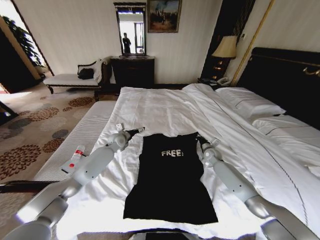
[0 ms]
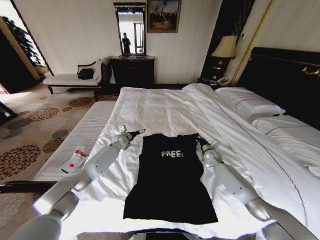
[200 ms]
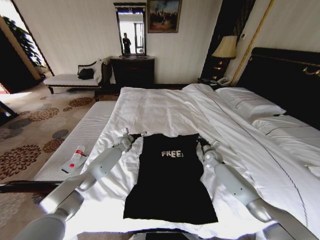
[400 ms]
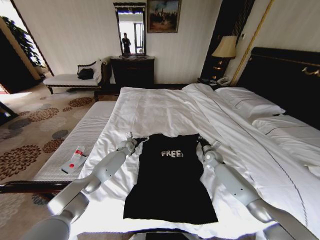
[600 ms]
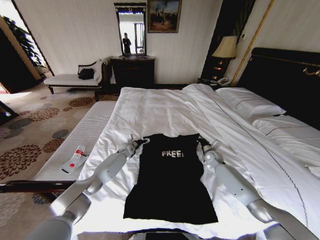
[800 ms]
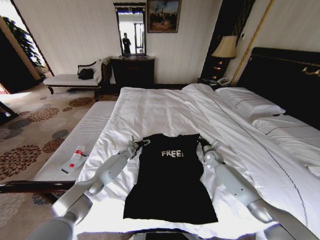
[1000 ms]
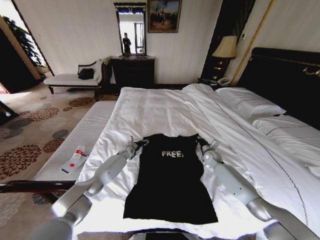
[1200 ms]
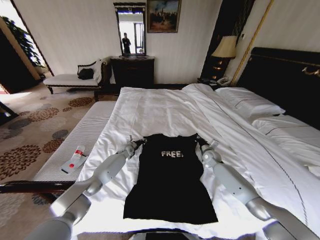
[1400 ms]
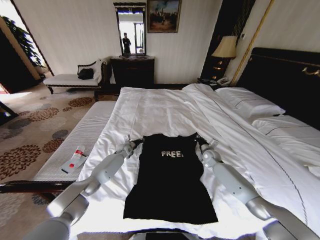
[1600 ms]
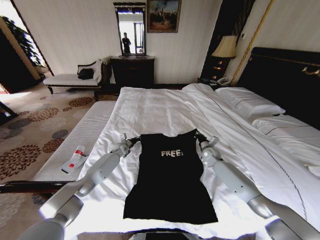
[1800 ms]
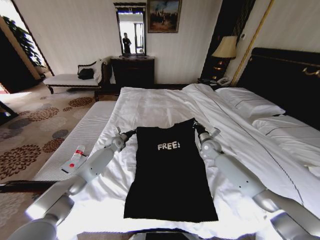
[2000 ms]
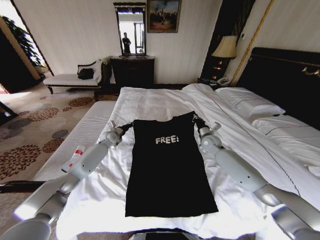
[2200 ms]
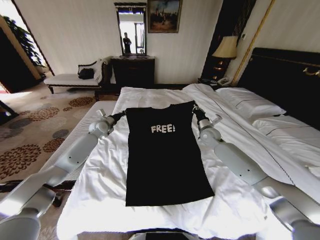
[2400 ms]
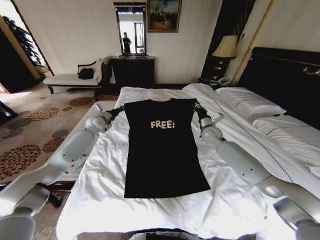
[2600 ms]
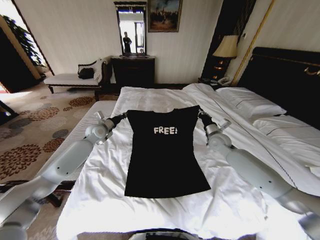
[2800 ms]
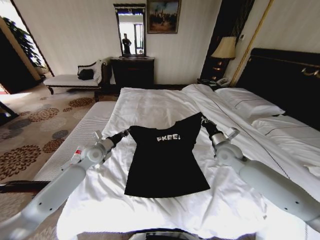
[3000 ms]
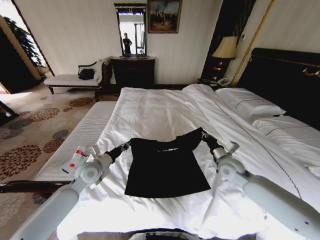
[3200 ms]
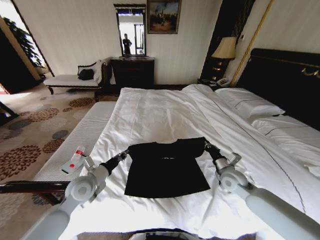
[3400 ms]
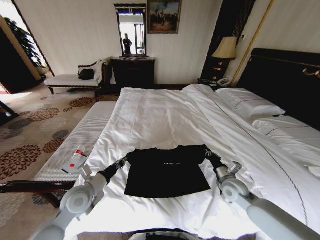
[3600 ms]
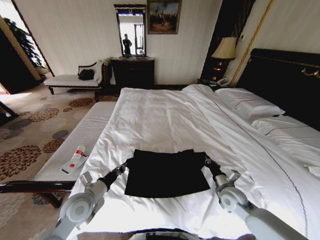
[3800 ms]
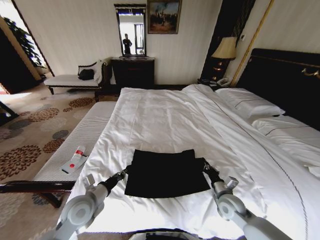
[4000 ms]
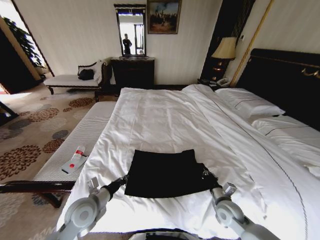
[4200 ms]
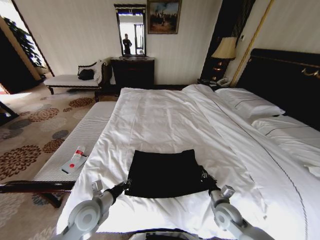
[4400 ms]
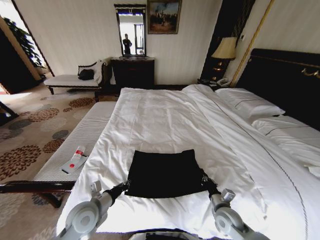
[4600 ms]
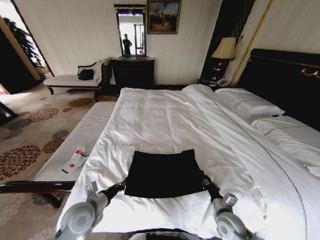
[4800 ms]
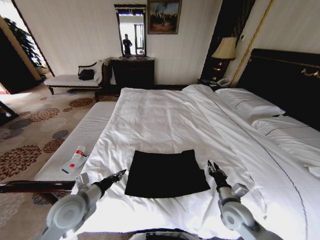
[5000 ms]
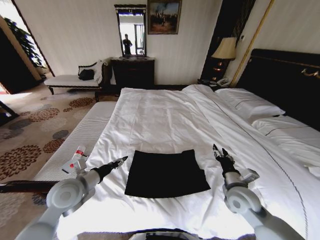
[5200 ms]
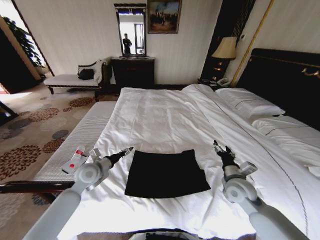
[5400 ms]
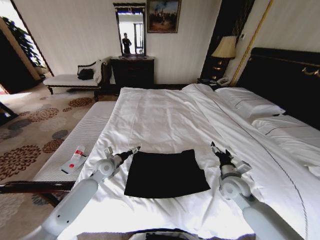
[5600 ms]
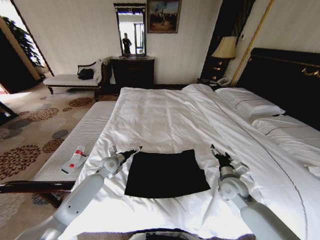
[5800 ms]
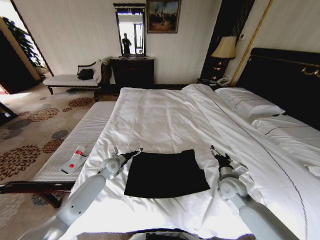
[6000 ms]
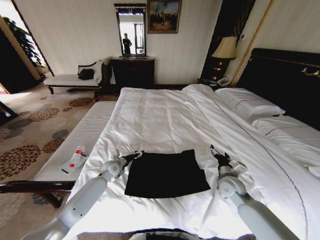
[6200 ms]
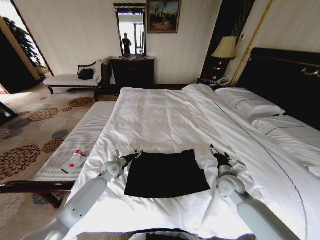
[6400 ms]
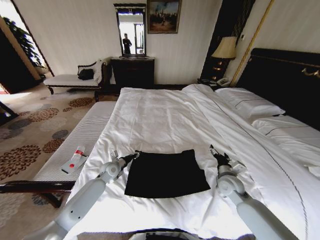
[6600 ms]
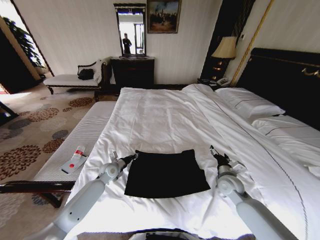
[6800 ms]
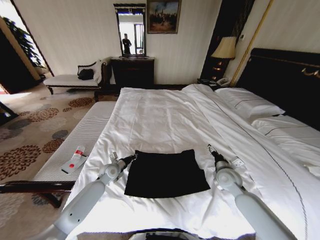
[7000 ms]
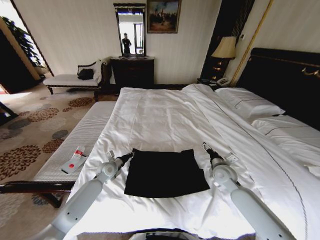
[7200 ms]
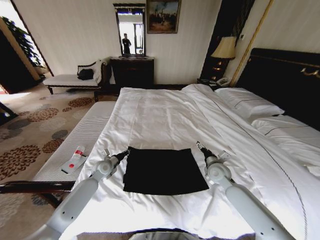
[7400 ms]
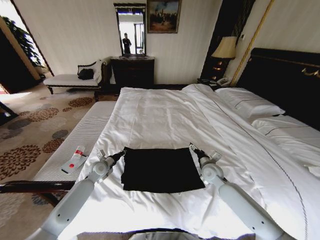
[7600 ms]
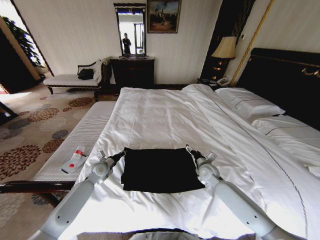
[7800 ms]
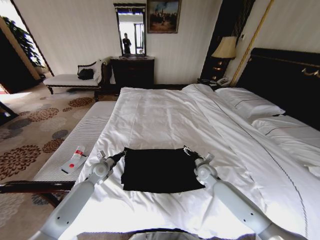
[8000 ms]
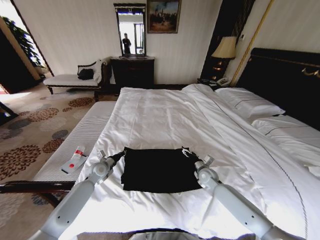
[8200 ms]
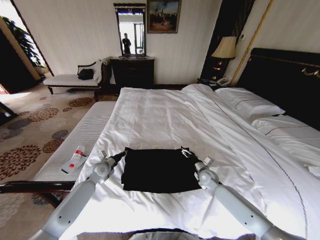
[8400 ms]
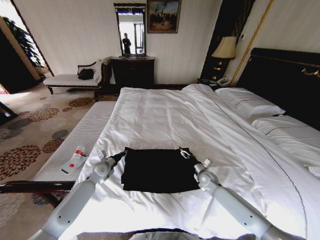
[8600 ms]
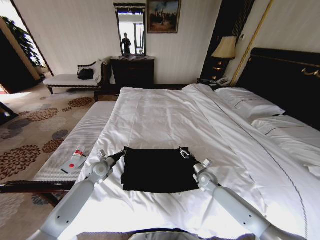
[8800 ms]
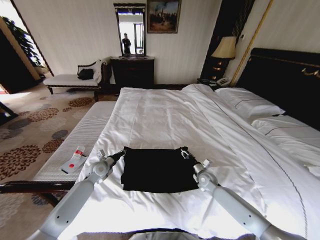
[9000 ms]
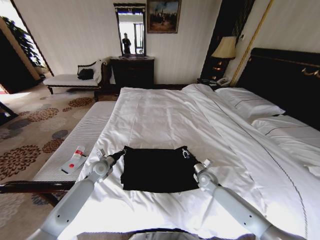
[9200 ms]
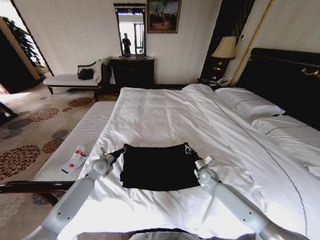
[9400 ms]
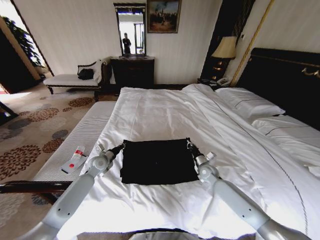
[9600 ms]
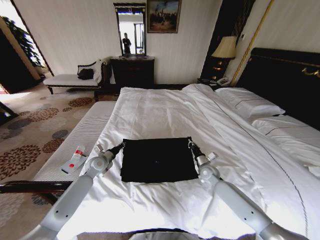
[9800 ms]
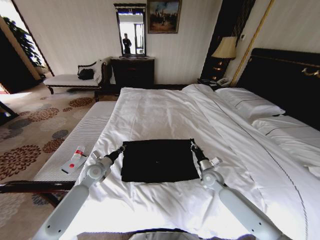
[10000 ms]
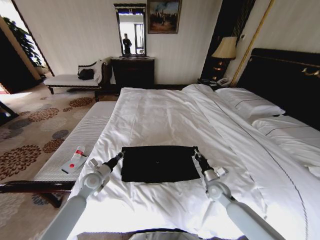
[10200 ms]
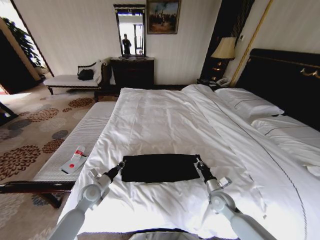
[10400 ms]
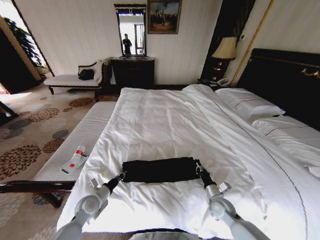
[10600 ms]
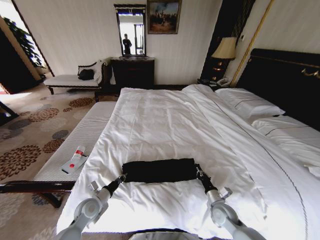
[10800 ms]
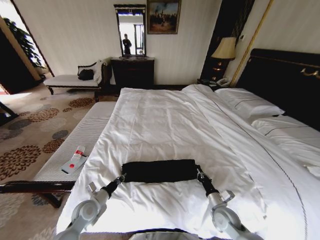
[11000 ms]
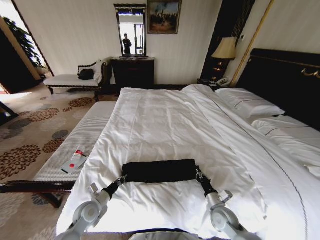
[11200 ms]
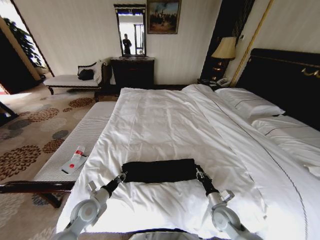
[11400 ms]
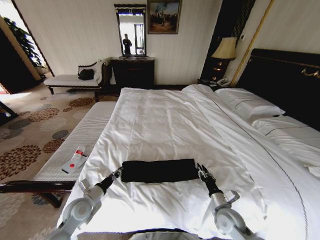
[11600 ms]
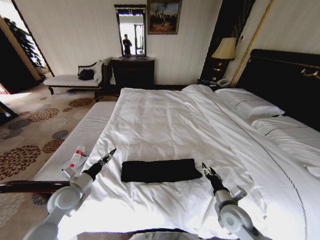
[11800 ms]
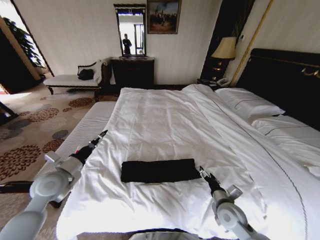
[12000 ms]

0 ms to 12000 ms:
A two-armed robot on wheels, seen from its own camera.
Task of the whole recording: Fold the clothes on the bed.
0 ms to 1600 ms: The left gripper is displaced downward by approximately 15 cm, and closes.
1600 ms to 3000 ms: The right gripper is displaced upward and backward by some 15 cm. The left gripper moves upward, backward and to the left, roughly 20 cm.
3000 ms to 4400 ms: The left gripper shifts approximately 20 cm backward; the right gripper travels backward and downward by approximately 25 cm.
4400 ms to 6000 ms: The left gripper heads forward, covering some 20 cm, and opens. The right gripper is displaced forward and upward by about 10 cm, and opens up.
6000 ms to 7600 ms: The right gripper moves forward and to the left, approximately 10 cm, while the left gripper travels to the left by approximately 5 cm, and closes.
7600 ms to 9000 ms: The right gripper heads downward, covering roughly 10 cm, and closes.
9000 ms to 10400 ms: Both grippers move backward, some 10 cm. The right gripper closes its fingers.
10400 ms to 12000 ms: The left gripper travels upward by roughly 15 cm, and opens up. Meanwhile the right gripper goes roughly 10 cm upward and backward, and opens up.

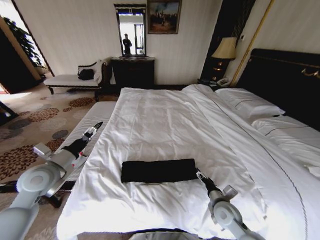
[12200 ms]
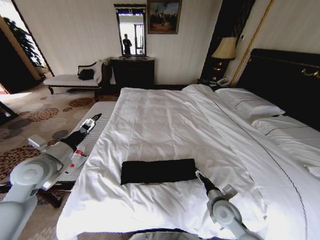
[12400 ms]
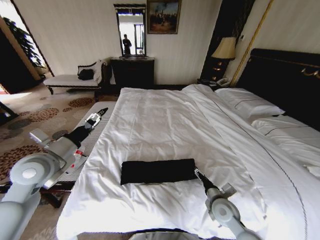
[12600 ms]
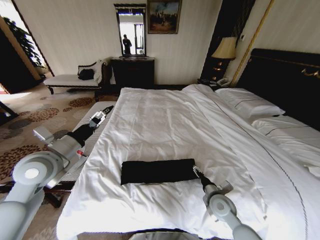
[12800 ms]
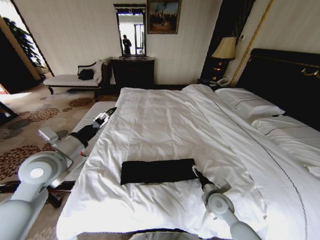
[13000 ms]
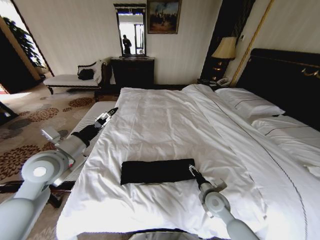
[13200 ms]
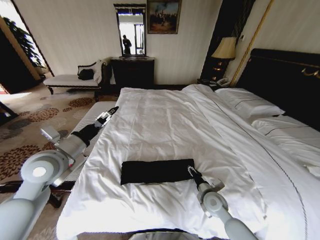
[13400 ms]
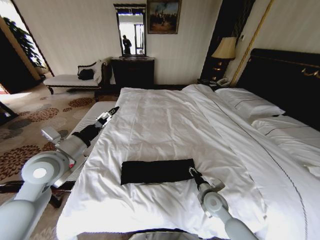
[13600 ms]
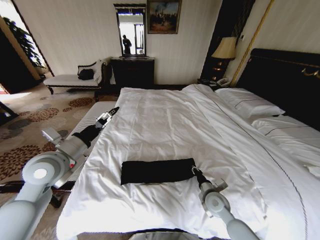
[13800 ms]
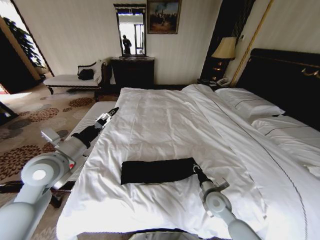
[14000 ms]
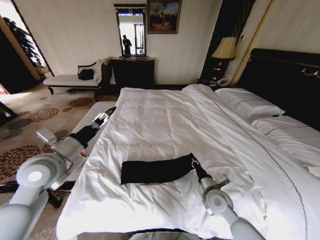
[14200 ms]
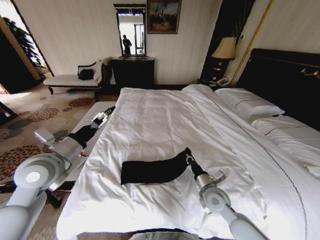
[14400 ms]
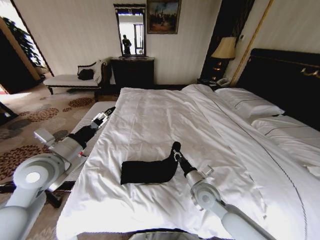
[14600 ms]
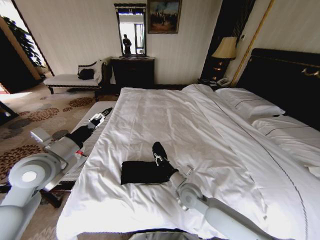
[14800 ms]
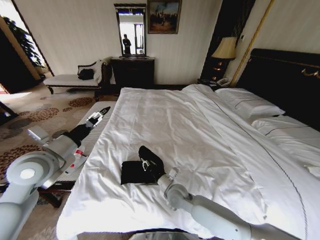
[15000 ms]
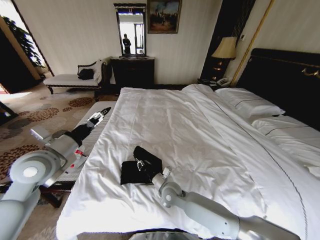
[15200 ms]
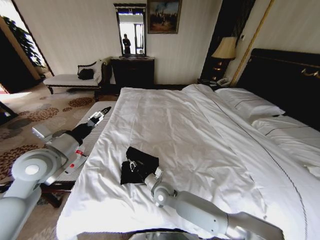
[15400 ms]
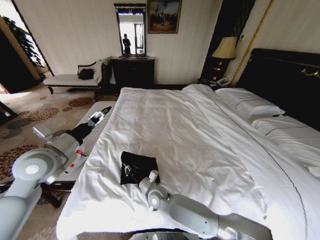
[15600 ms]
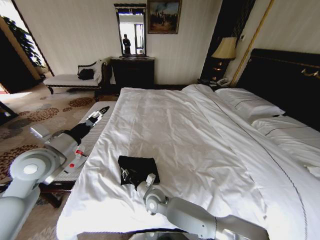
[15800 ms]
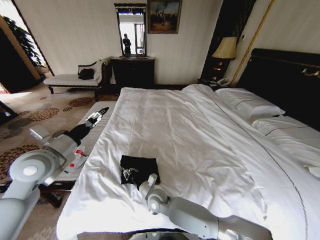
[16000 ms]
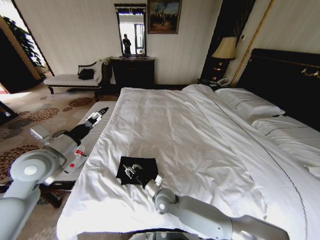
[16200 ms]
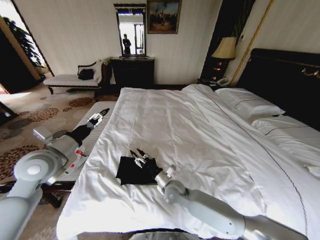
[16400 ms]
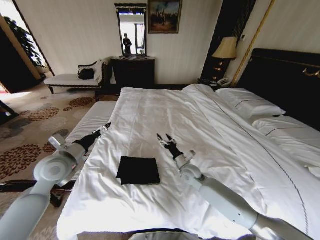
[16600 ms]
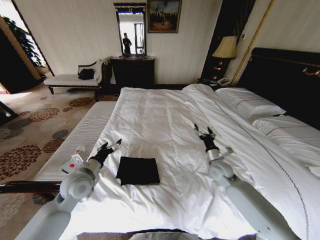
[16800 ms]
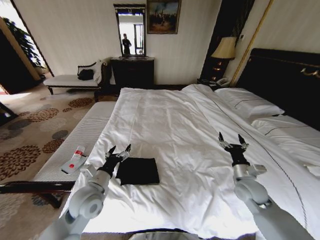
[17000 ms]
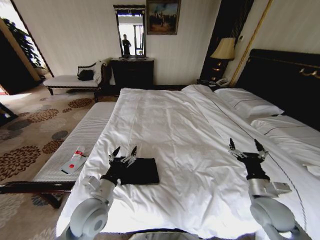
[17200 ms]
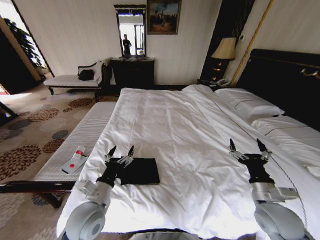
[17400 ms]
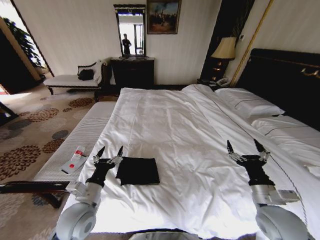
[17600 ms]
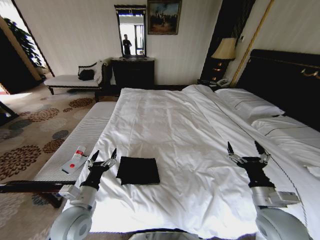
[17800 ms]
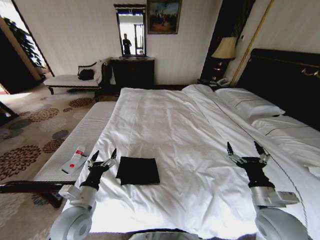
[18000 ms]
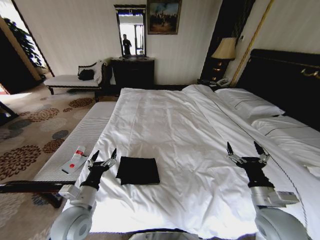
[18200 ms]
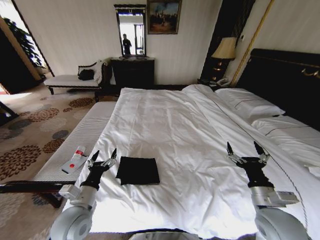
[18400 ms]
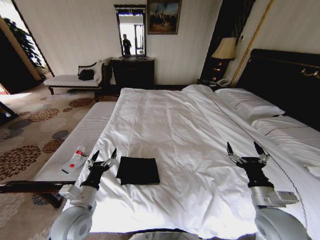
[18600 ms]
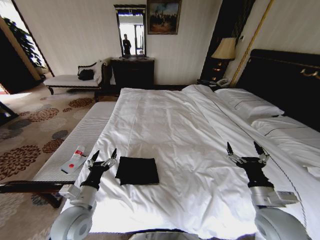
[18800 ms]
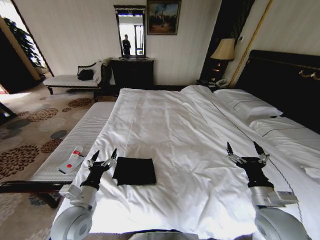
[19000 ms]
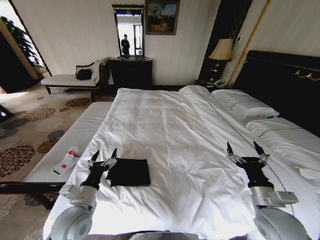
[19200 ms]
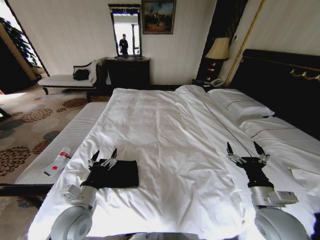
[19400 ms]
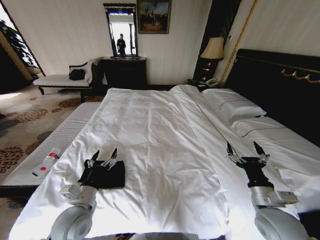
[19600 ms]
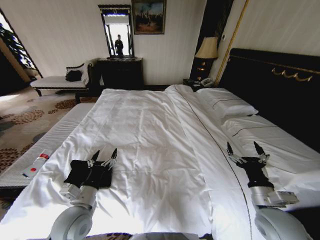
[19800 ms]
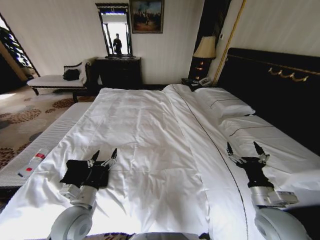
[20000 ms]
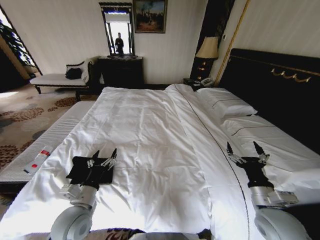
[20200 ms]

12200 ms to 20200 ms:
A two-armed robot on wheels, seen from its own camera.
Task of the whole recording: Fold the clothes on the bed.
12200 ms to 13800 ms: The left gripper moves to the right and upward, about 10 cm. Meanwhile the right gripper closes up.
13800 ms to 15400 ms: The right gripper shifts approximately 25 cm to the left, and closes.
15400 ms to 17000 ms: The right gripper heads to the right, covering roughly 35 cm, and opens its fingers. The left gripper shifts approximately 20 cm downward and to the right.
17000 ms to 18600 ms: The right gripper is displaced backward and upward by some 10 cm; the left gripper shifts some 5 cm backward.

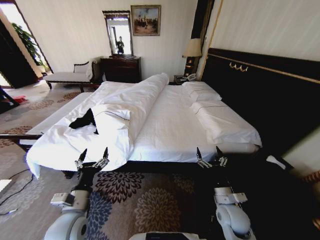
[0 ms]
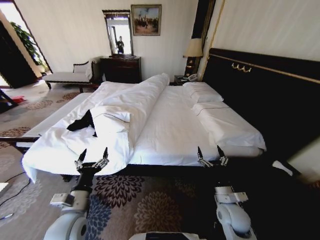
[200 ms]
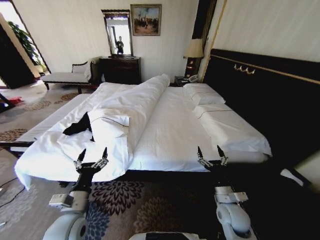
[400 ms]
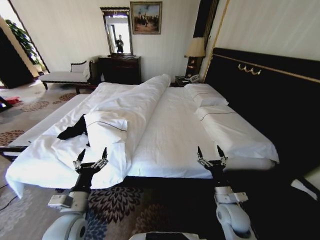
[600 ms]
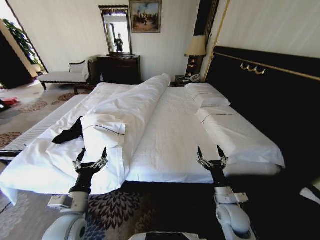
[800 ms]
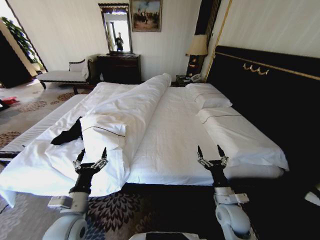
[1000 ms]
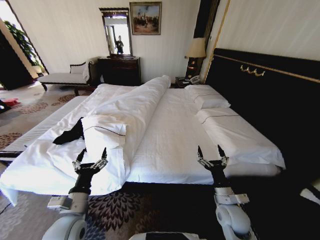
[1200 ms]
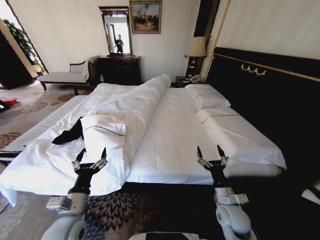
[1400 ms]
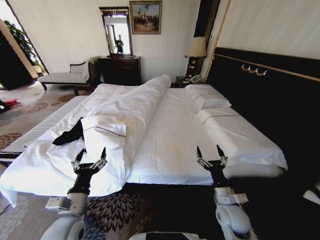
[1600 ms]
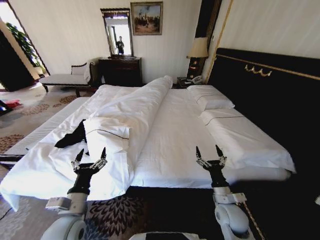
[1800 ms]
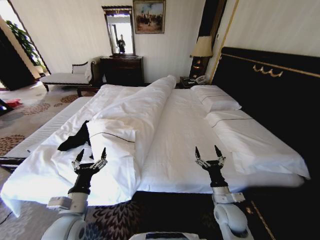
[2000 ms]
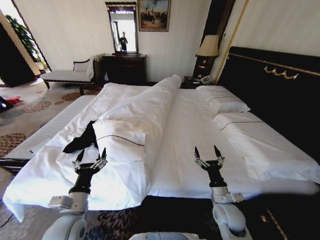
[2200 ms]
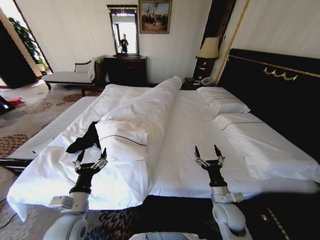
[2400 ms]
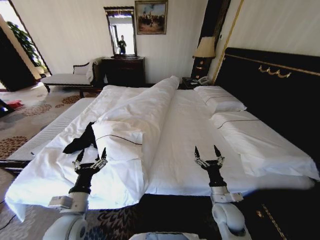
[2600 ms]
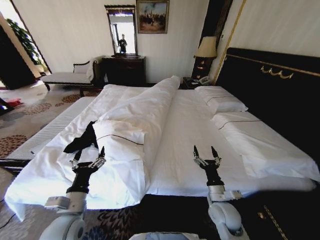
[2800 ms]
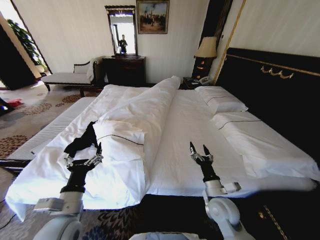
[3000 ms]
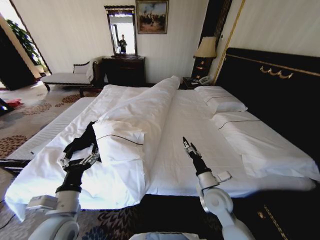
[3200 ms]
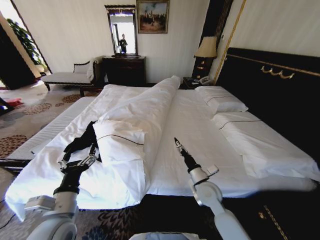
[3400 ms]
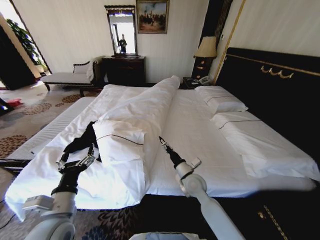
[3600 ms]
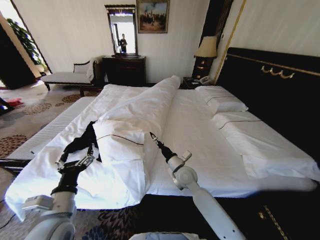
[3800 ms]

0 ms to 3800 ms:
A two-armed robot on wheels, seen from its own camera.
Task of the whole recording: Fold the clothes on the bed.
2600 ms to 3800 ms: The right gripper heads to the left and forward, covering roughly 20 cm.
